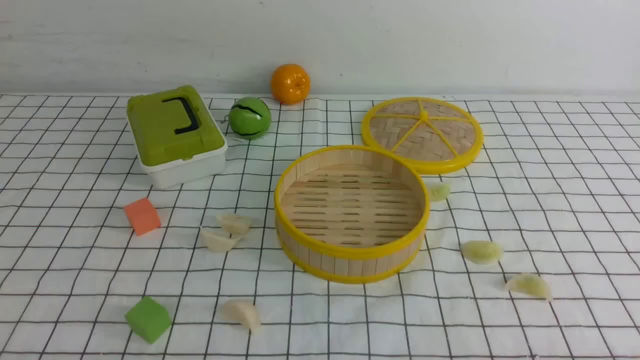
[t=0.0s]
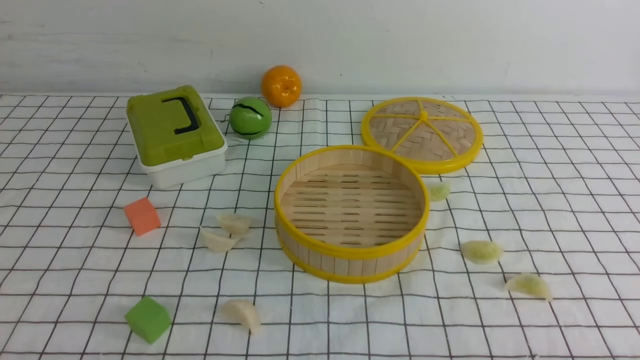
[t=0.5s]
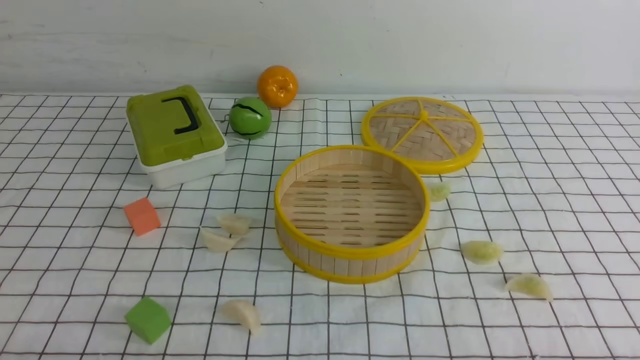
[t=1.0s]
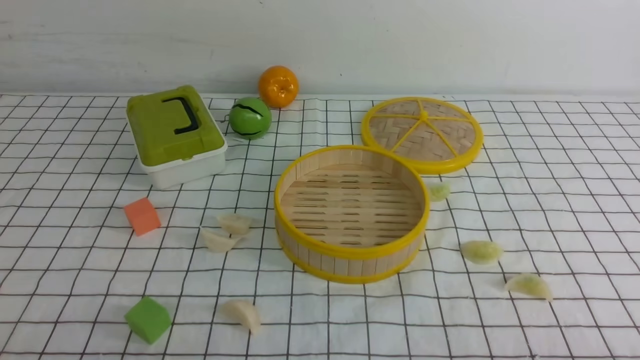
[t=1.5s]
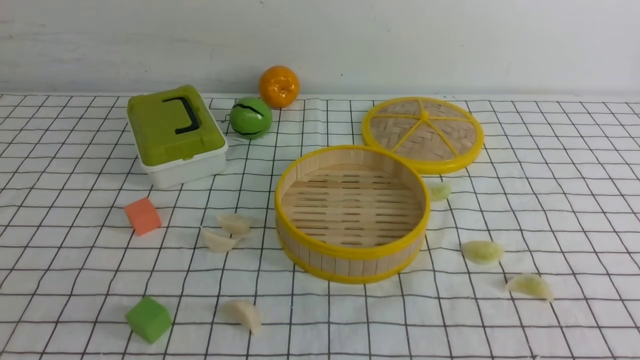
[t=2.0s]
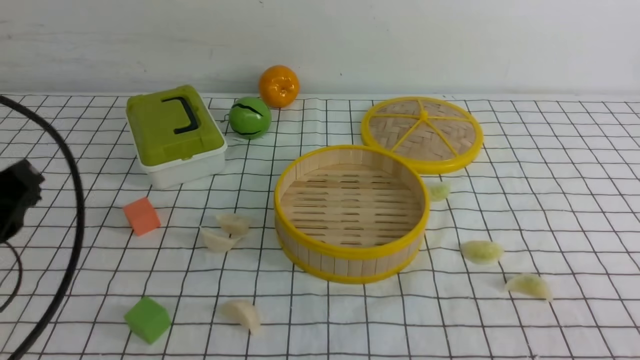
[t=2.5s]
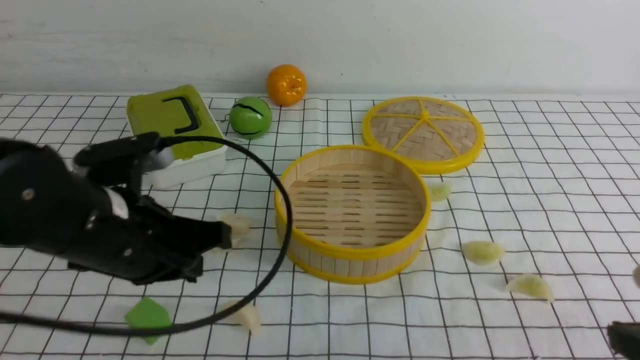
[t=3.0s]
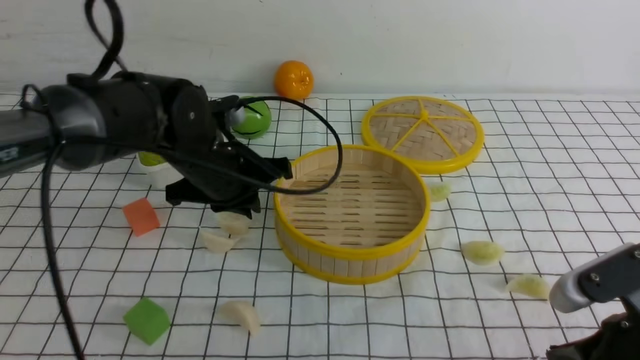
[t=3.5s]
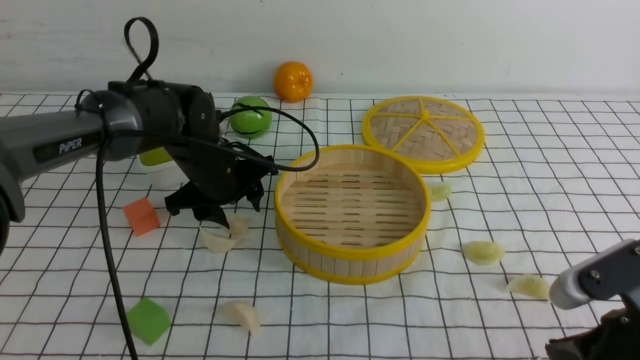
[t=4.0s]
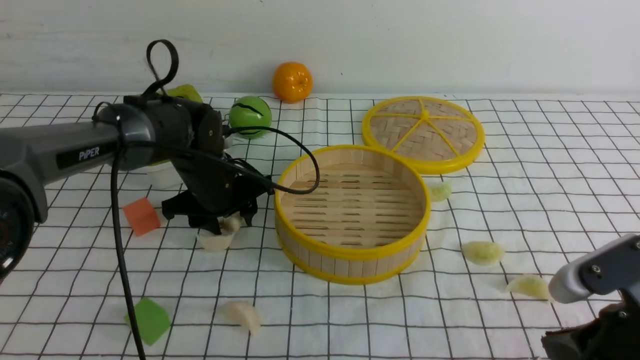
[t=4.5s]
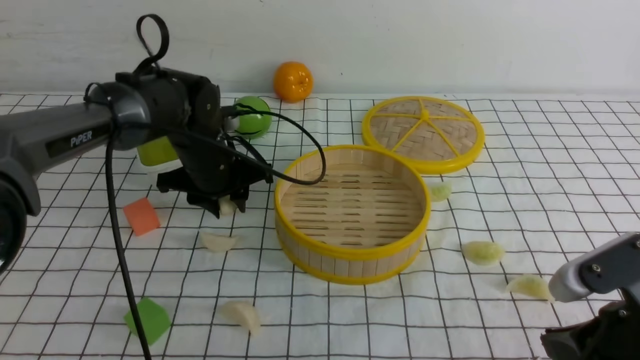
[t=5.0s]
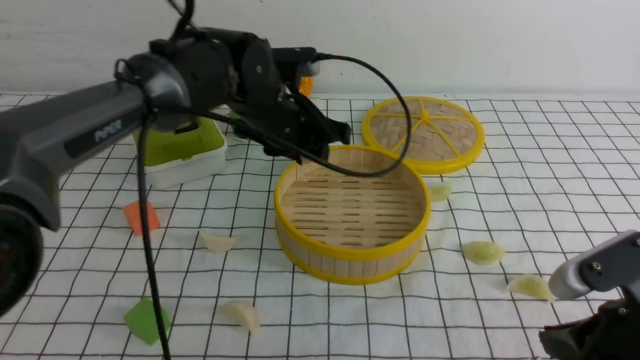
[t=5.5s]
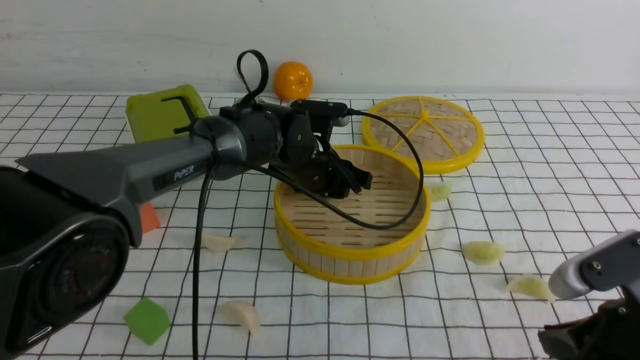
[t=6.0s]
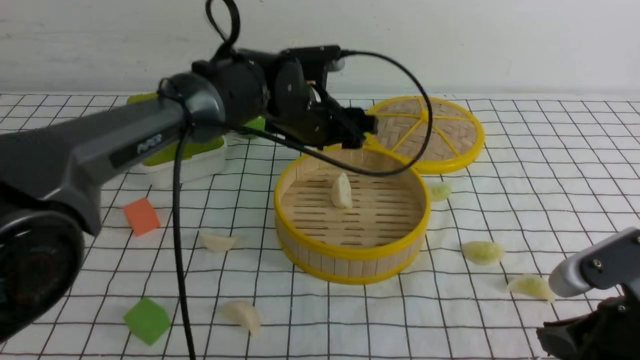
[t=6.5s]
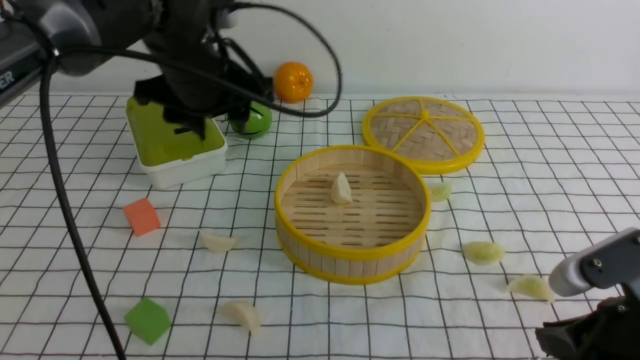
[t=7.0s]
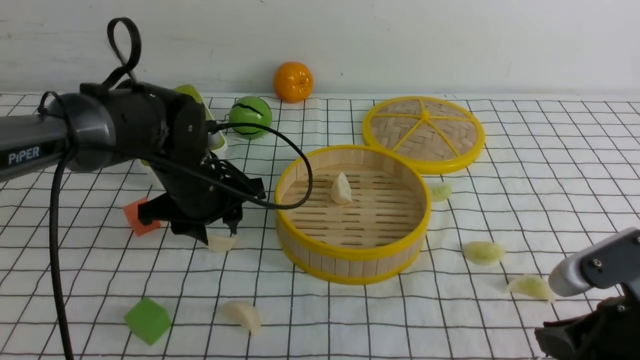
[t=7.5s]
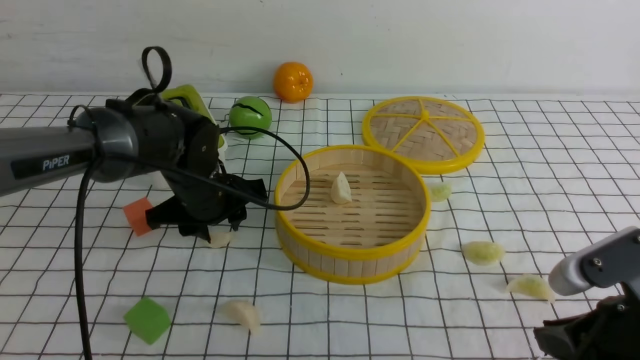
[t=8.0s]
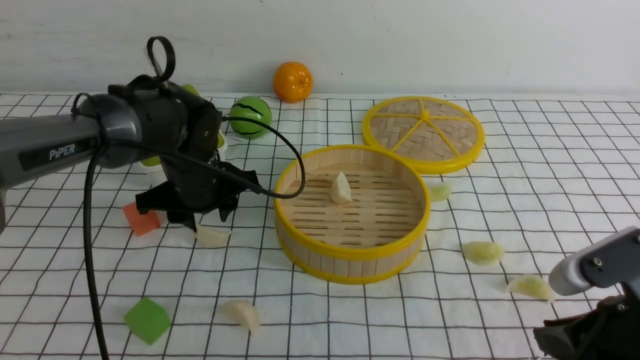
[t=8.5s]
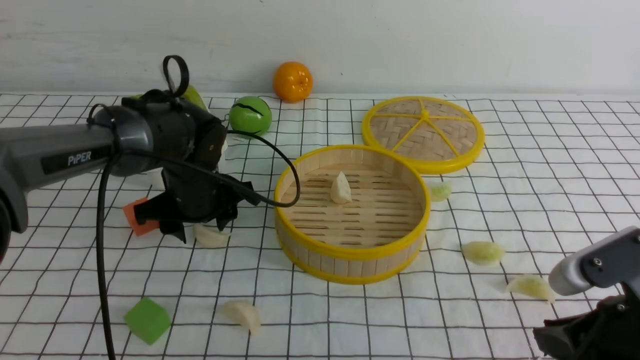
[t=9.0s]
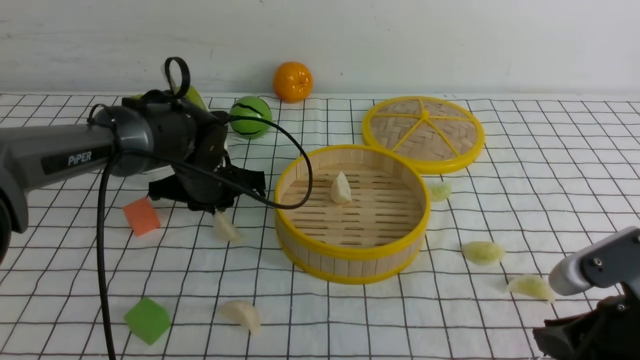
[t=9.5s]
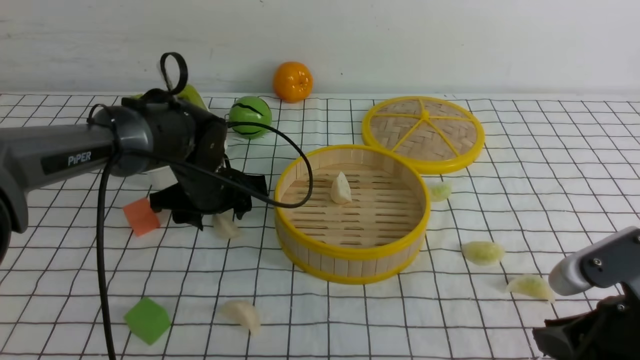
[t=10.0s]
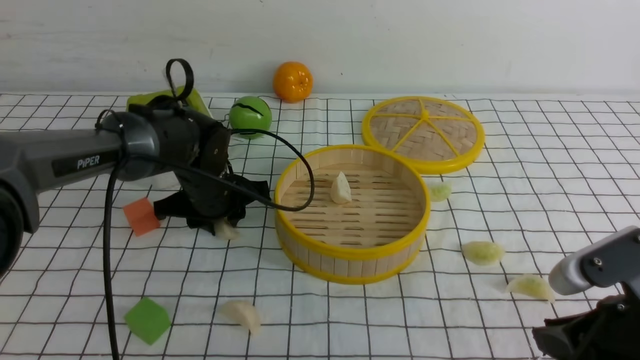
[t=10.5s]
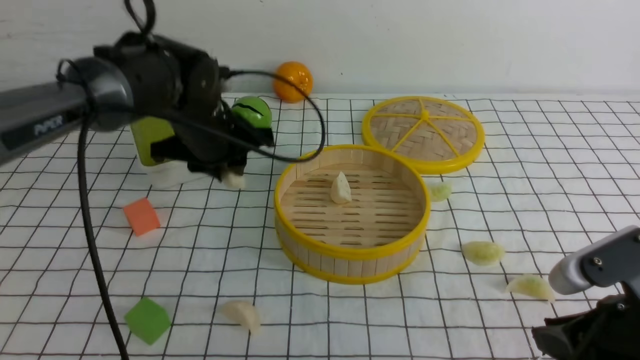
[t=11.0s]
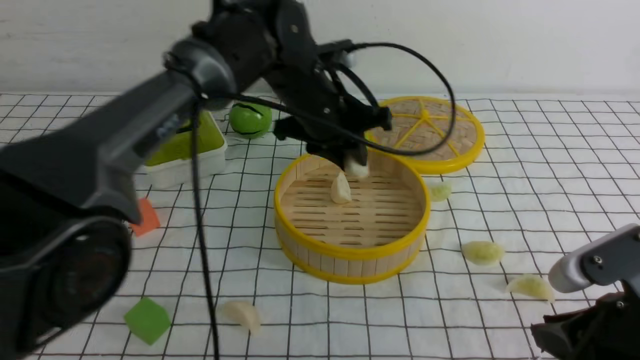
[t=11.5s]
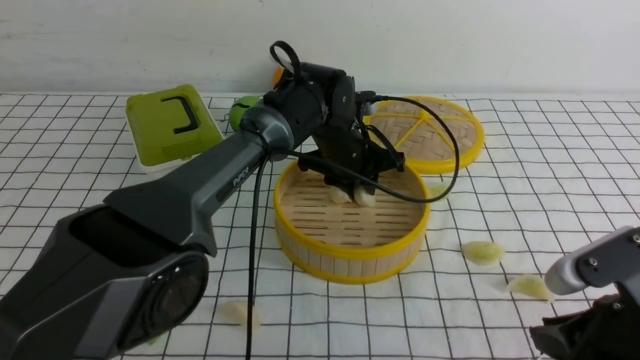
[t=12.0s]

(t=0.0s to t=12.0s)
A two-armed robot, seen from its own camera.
Task of the whole recording: put the dumplings into the steamer on the table with the white tablecloth.
Step, t=0.0s - t=5.0s: use the left arm to grab a dumpling.
Step, t=5.5s - t=6.5s: use the left arm to put the dumpling into the steamer.
Step, t=7.0s - t=11.0s: use the left arm to grab a dumpling.
t=2.0s - t=4.0s: The left gripper heads forward, covering roughly 35 cm, and opens. Meanwhile the right gripper heads forward, to the left and downward, covering approximately 15 cm.
t=4.0s - t=6.0s: The left gripper moves to the right, approximately 10 cm.
t=6.0s - t=8.0s: The left gripper moves to the left, approximately 10 cm.
t=8.0s - t=10.0s: The left gripper closes, then reopens.
t=10.0s - t=12.0s: The left gripper shifts approximately 15 cm to the right.

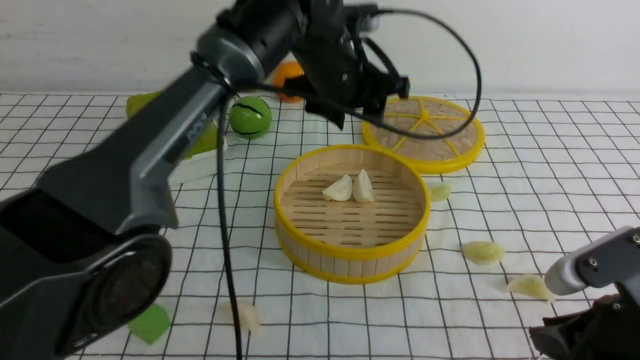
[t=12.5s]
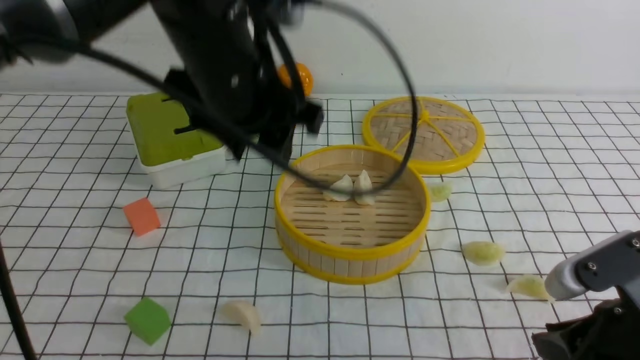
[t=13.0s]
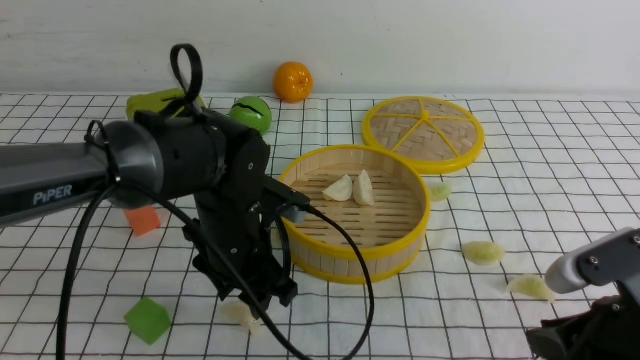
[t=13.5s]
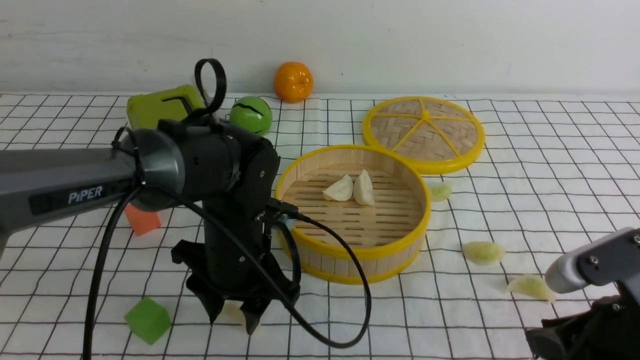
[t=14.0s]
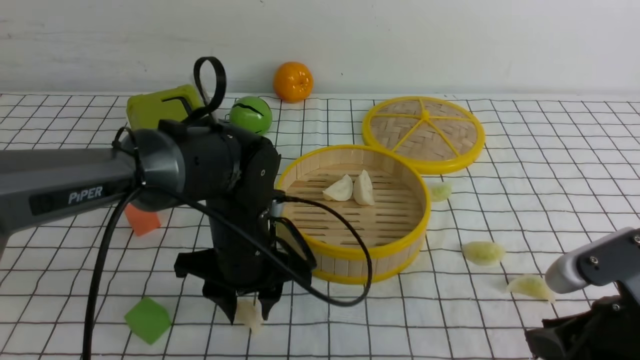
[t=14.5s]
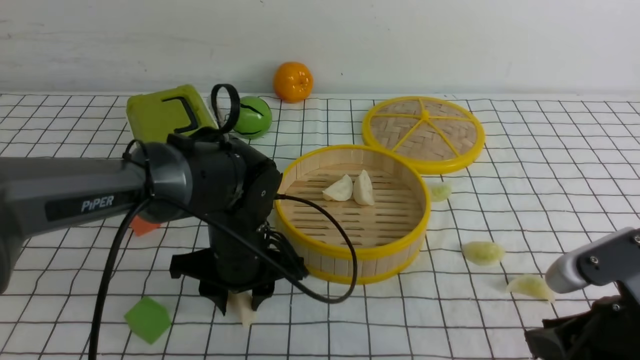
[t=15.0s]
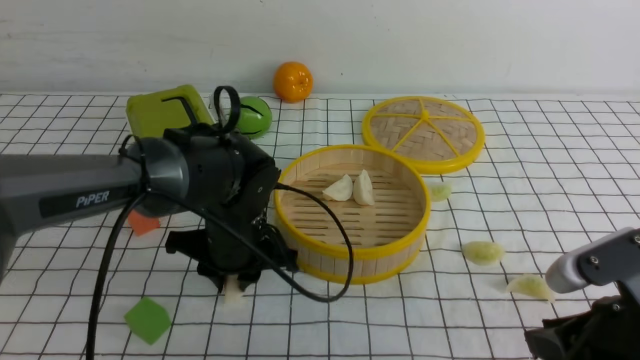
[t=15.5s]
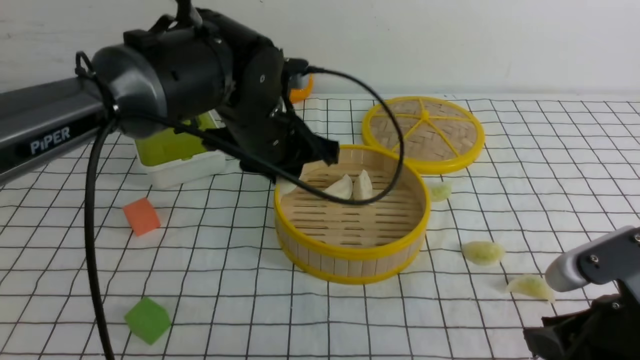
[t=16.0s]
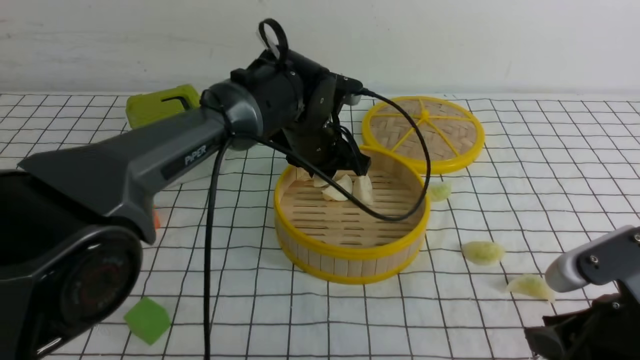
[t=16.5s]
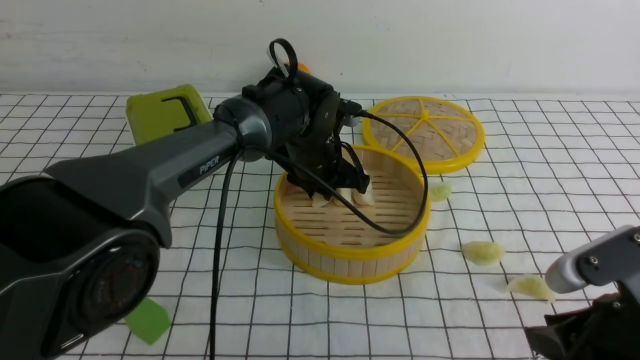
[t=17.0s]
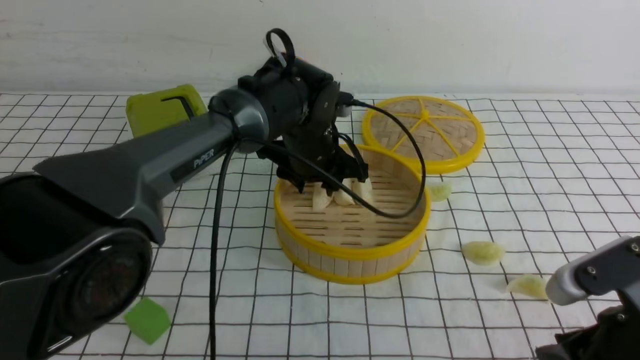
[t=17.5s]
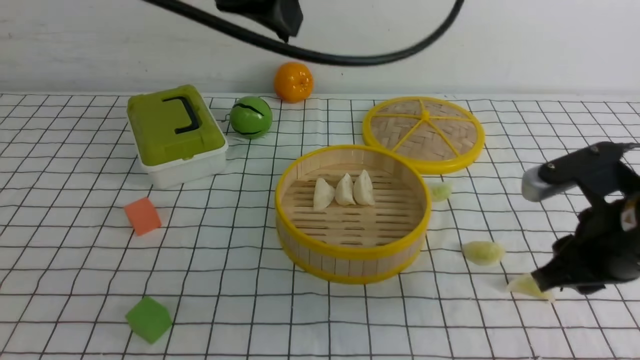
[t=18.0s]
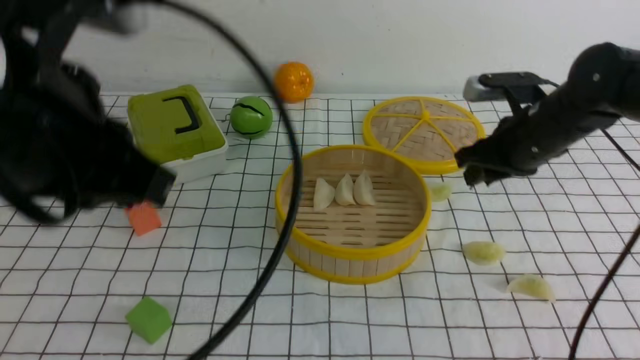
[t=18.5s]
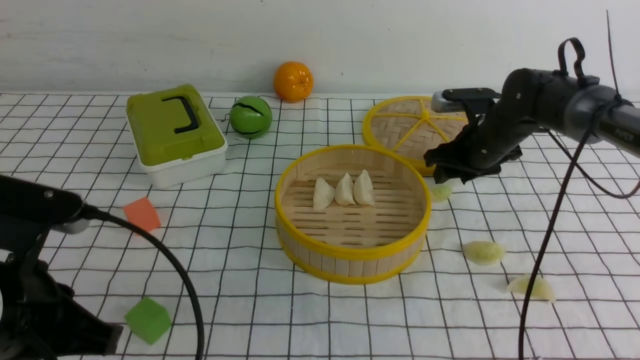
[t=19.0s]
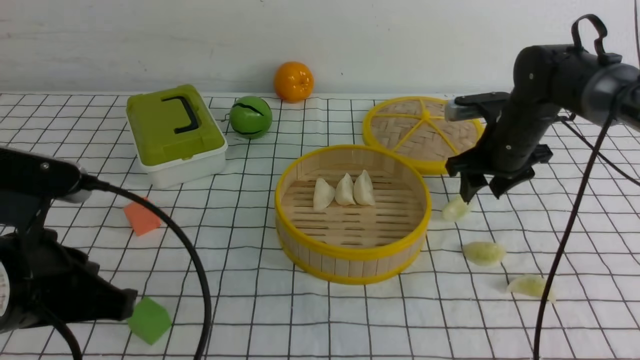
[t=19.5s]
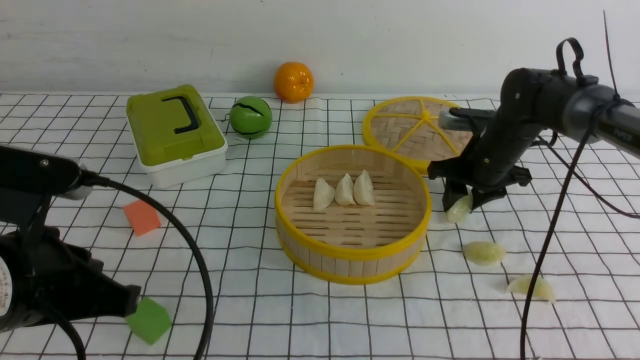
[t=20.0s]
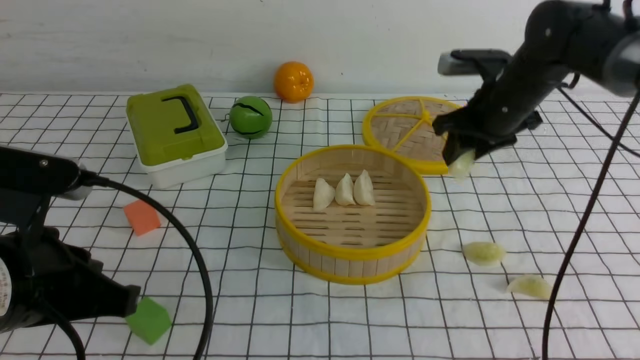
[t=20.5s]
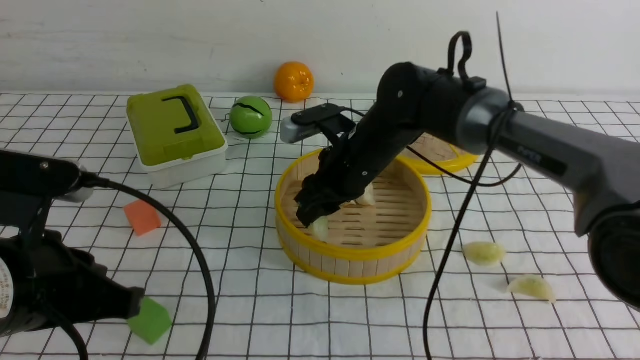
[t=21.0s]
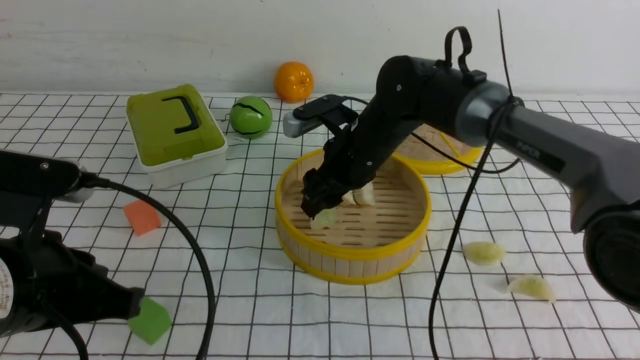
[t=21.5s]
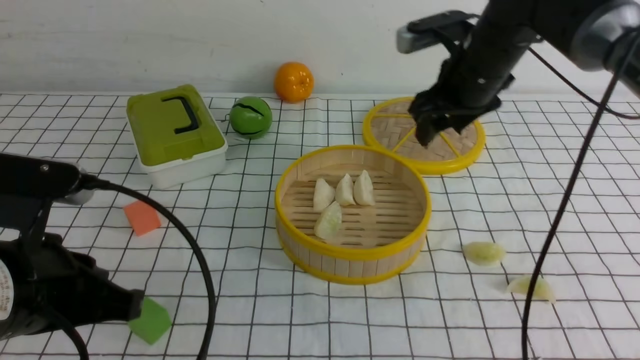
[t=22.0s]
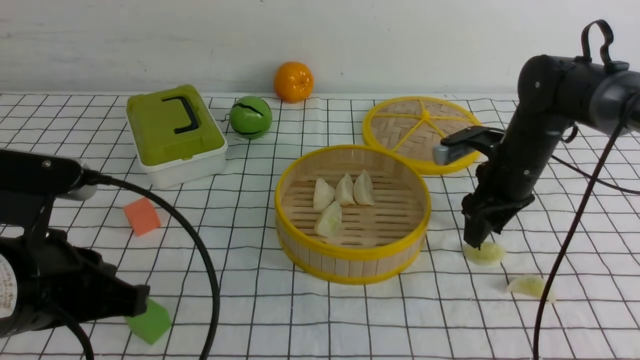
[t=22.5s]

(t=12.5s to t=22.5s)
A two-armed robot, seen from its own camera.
Task of the whole recording: put the dumplings into the steamer on the table with the white tablecloth.
Step, t=13.0s - t=15.5s: use the left arm to grab a dumpling.
Step, t=16.0s - t=17.5s: use the left arm to put the dumpling into the steamer.
Step, t=18.0s - t=20.5s: use the right arm to grab a dumpling.
Step, t=21.0s - t=21.5s: use the right arm to put the dumpling into the steamer.
t=12.5s - t=14.5s: The left gripper moves downward, backward and to the left, some 20 cm.
t=14.5s - t=16.5s: The left gripper goes some 15 cm forward and to the right.
t=16.5s - t=18.5s: The right gripper goes some 25 cm forward. The left gripper is displaced backward, upward and to the left by some 35 cm, and closes up.
t=18.5s - t=20.5s: The right gripper travels downward and back again, roughly 5 cm each way. Meanwhile the left gripper heads downward, covering about 10 cm.
t=20.5s - t=22.5s: The right gripper heads downward, covering about 5 cm, and reaches about 15 cm to the left, then returns.
